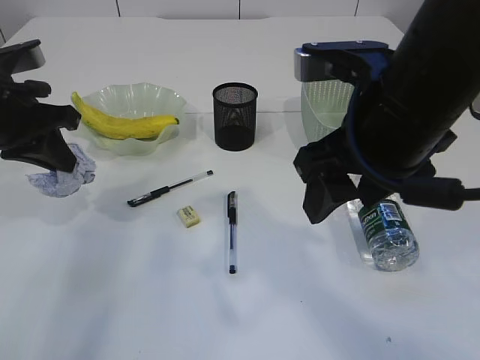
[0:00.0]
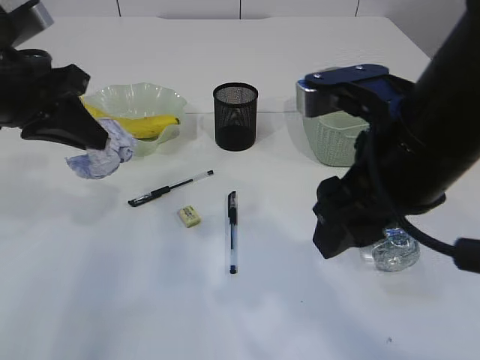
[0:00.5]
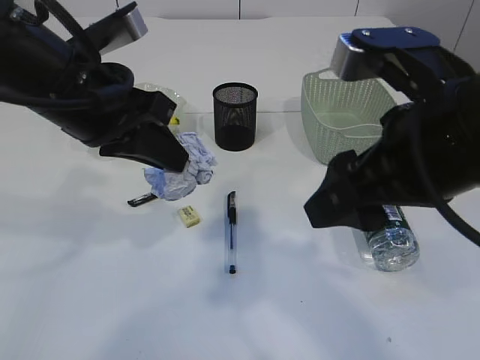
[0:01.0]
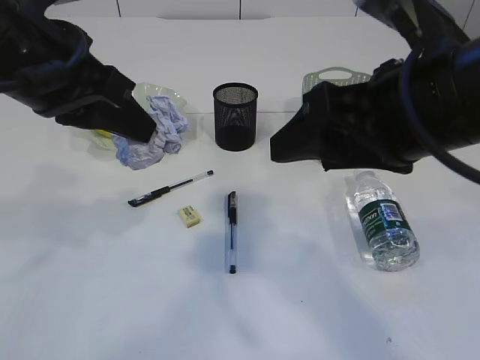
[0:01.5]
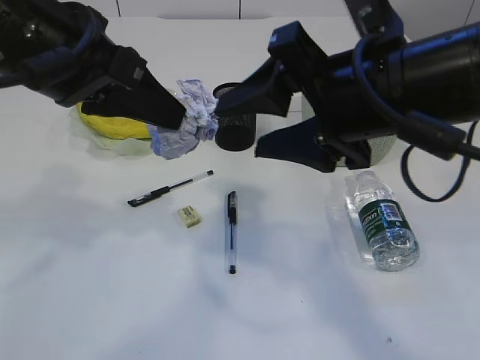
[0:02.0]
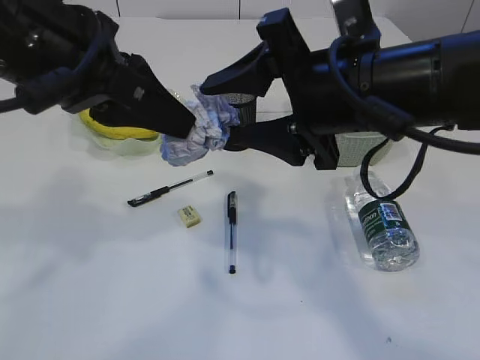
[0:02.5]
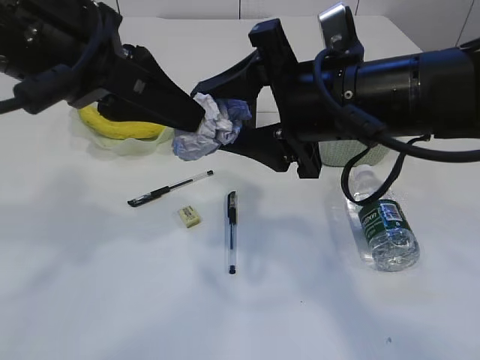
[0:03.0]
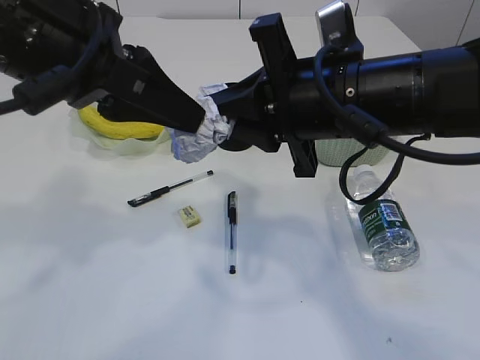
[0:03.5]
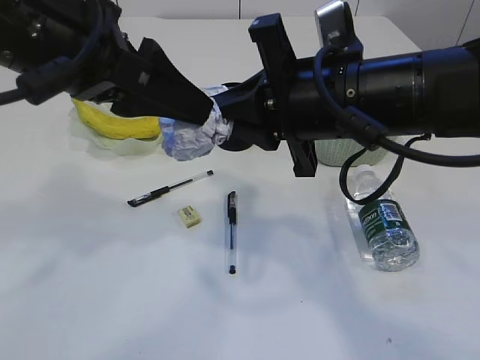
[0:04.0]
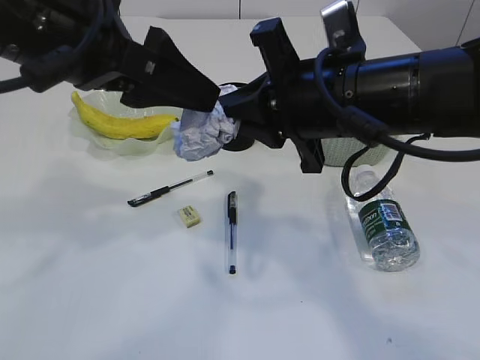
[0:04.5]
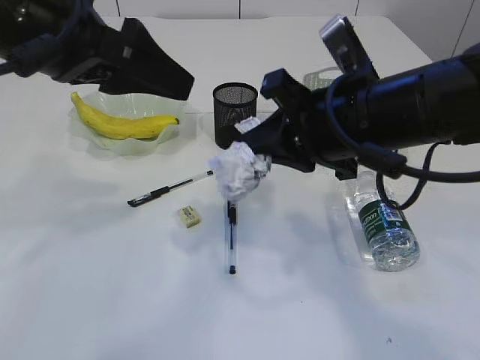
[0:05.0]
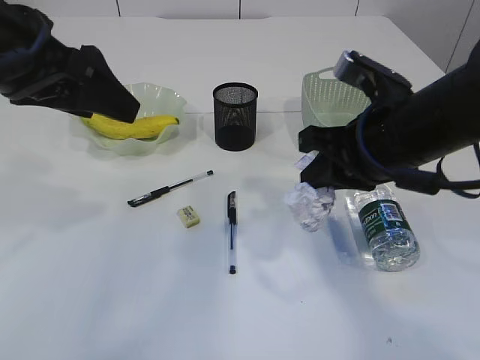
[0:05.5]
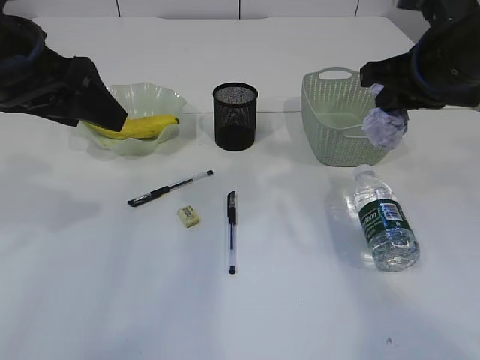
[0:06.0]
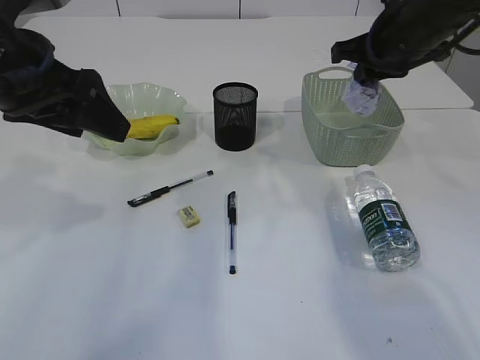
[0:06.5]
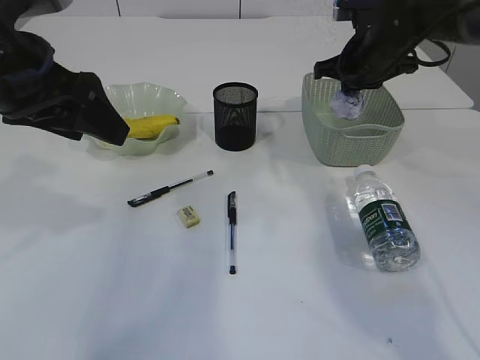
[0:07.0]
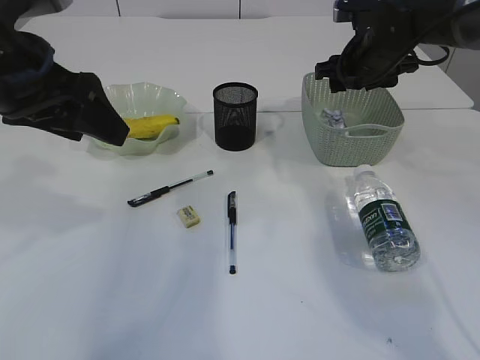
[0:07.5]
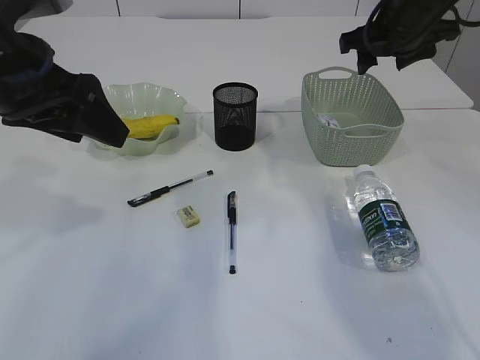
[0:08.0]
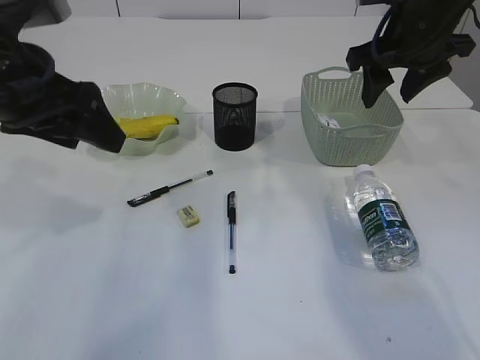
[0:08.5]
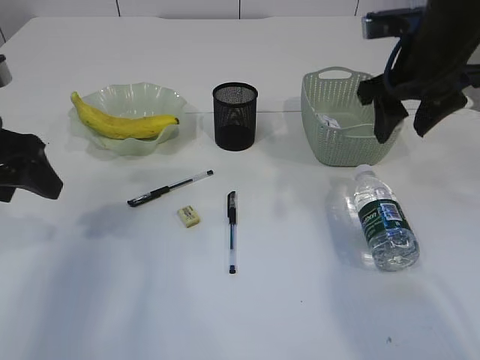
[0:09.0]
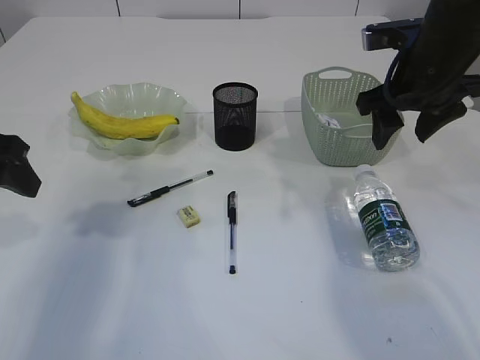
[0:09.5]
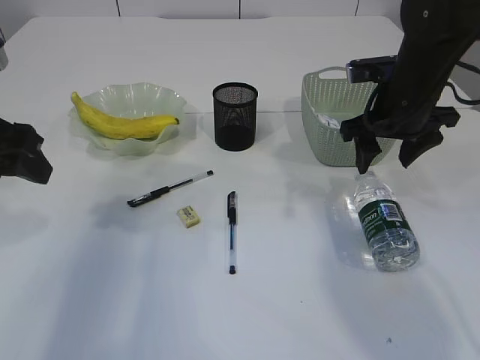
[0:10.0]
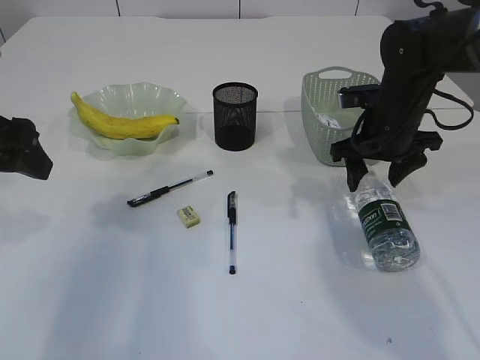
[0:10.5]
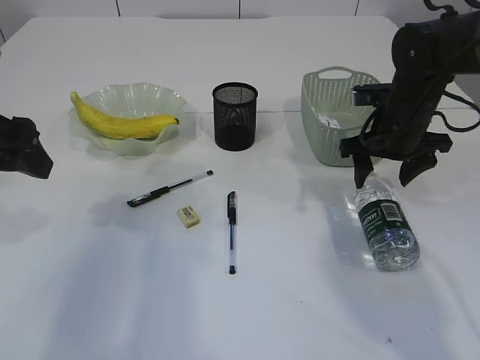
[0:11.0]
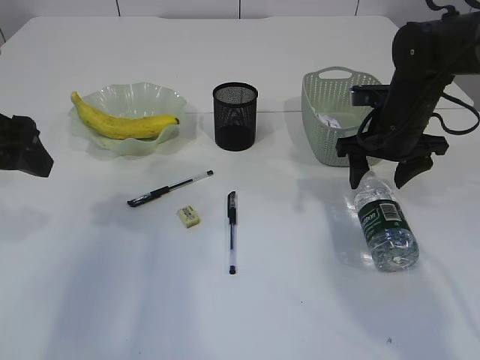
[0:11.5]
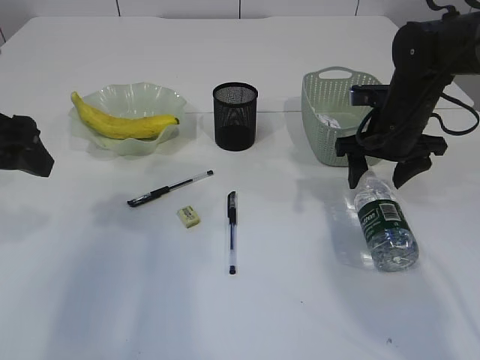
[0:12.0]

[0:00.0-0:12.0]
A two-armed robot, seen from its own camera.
Step, 0:00.0 to 0:04.5: Hand over the waste paper.
Step, 0:05.0 to 0:08.5: Place the eraser into the pen holder.
0:00.0 to 0:02.0: The left gripper shifts about 15 cm to the right, upward and backward.
0:02.0 to 0:04.0: The left gripper opens. The right gripper closes up.
0:04.0 to 0:06.0: The right gripper heads to the right and forward, covering approximately 15 cm; the left gripper is displaced to the left by roughly 5 cm.
0:06.0 to 0:08.0: The right gripper shifts approximately 10 cm forward, and opens up.
0:08.0 to 0:10.0: The right gripper travels downward and backward by about 10 cm, while the left gripper shifts about 5 cm to the left.
0:10.0 to 0:12.0: The right gripper ends up roughly 5 cm from where it was.

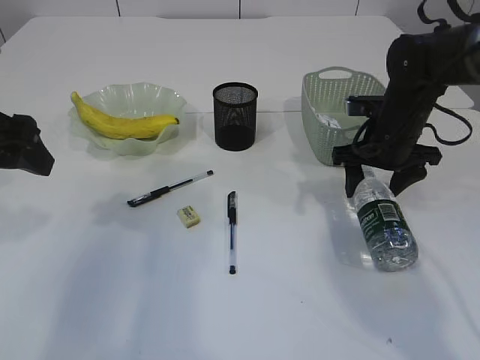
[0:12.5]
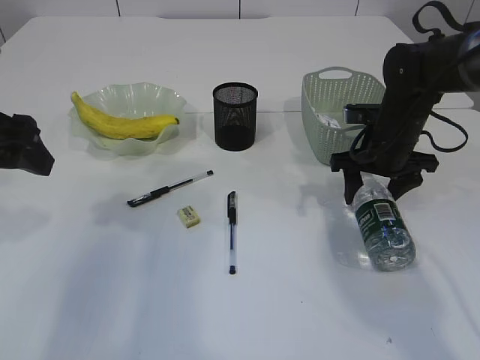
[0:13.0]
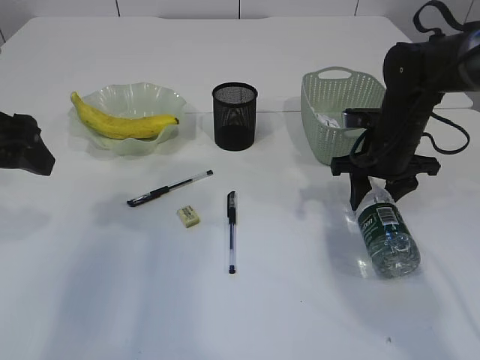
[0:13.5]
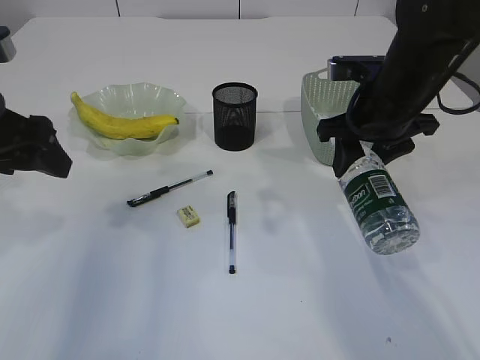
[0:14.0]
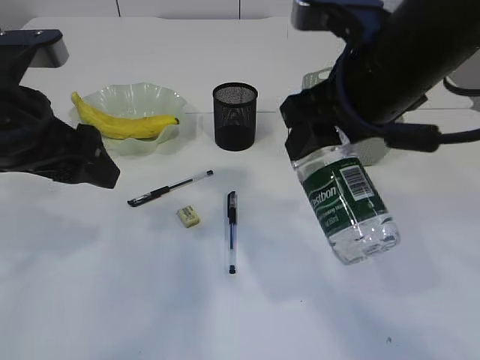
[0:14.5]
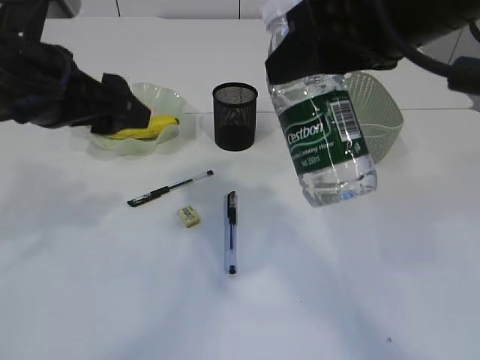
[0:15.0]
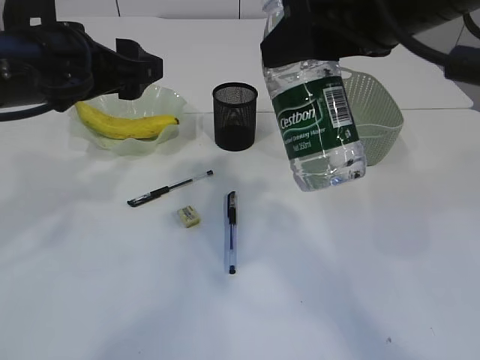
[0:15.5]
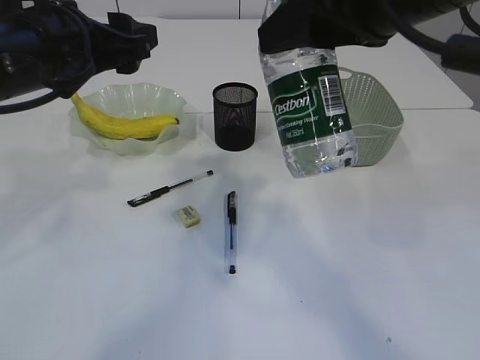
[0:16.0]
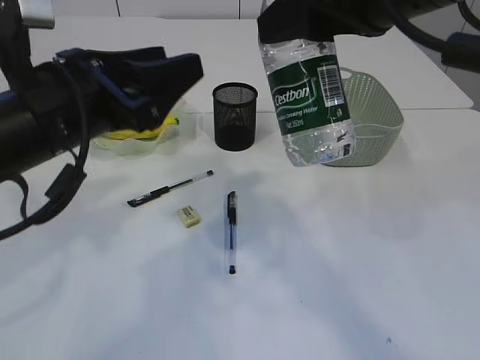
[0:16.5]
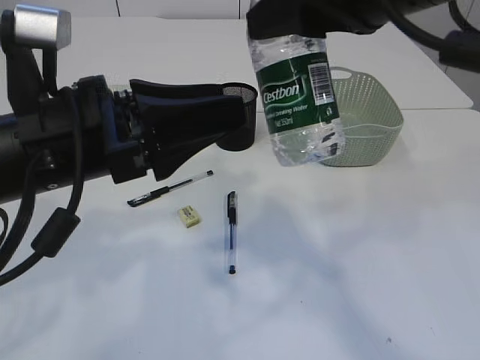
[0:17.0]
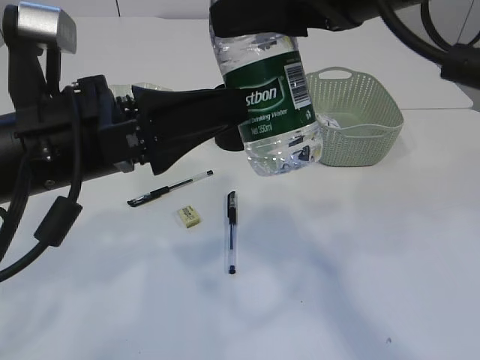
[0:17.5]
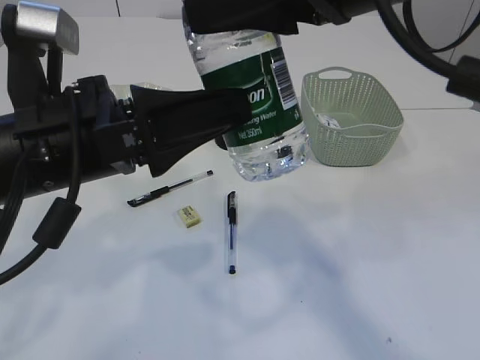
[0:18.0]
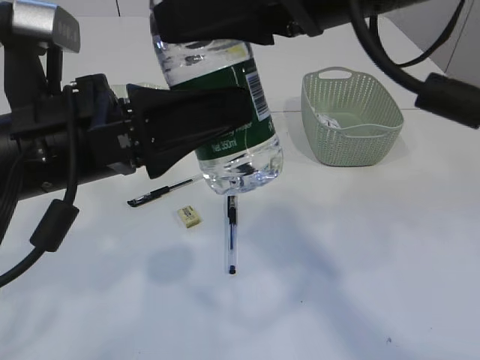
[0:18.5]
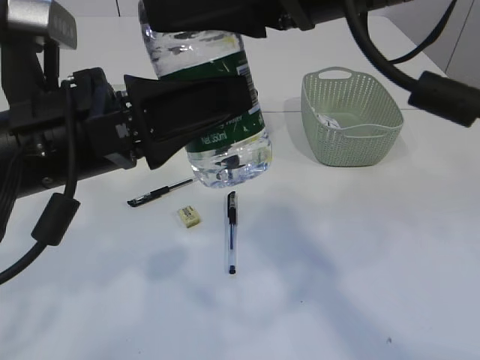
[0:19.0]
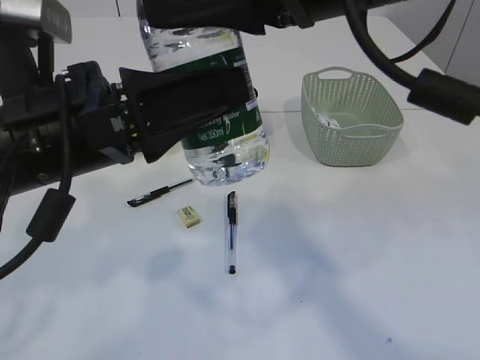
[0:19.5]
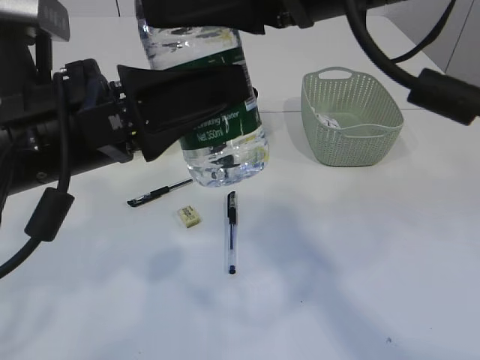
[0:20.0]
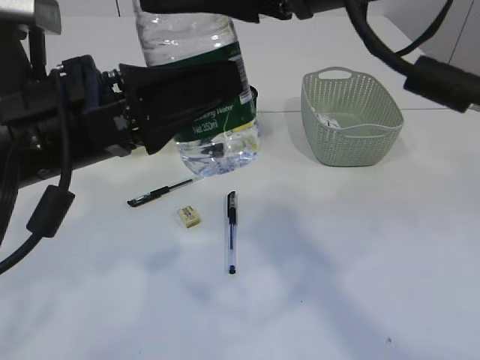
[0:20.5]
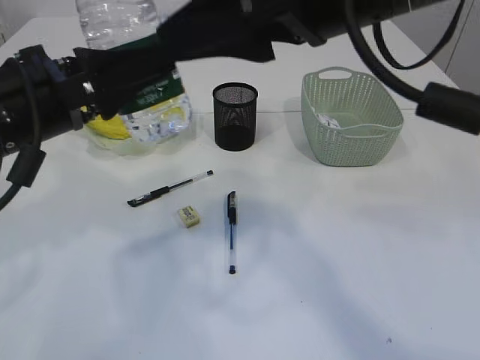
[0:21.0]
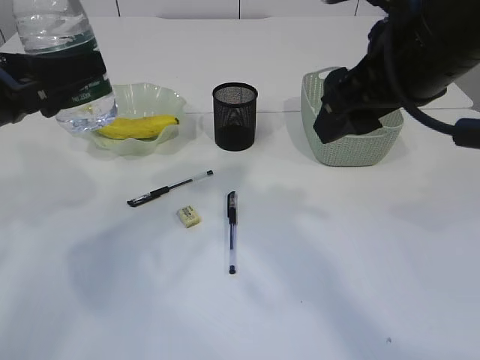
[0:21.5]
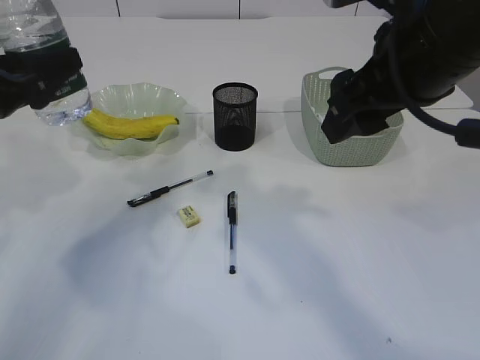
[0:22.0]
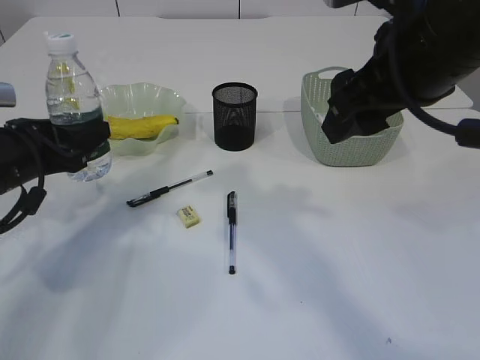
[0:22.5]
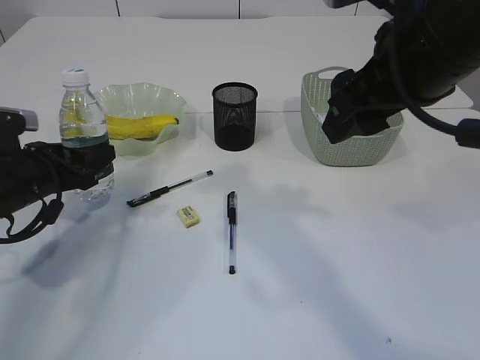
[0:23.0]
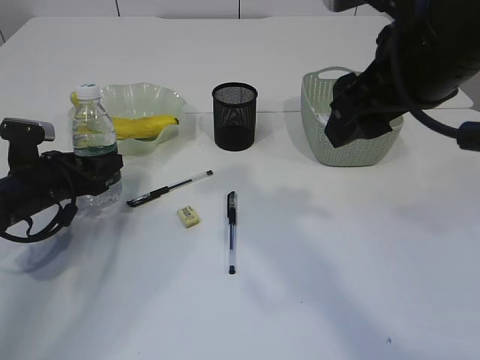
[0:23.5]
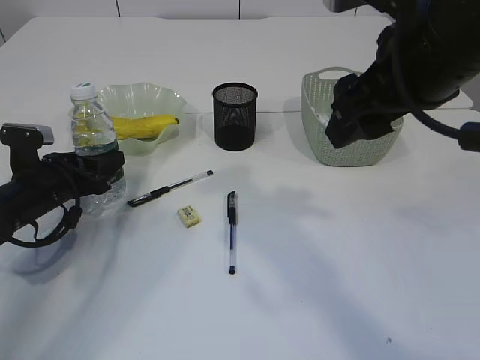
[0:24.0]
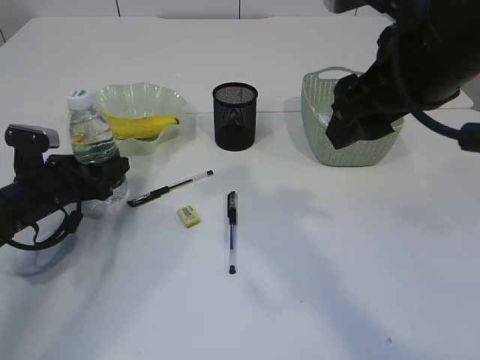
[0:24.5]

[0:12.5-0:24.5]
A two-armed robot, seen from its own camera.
Step, 0:14.5 to 0:21.0: transfer the bottle to the left arm.
0:12.5 to 0:14.5: The left gripper is displaced to the right by roughly 5 cm, while the right gripper goes roughly 20 cm upward, backward and to the left, and closes its fingers.
0:14.5 to 0:16.5: The right gripper shifts some 10 cm upward.
0:18.5 to 0:20.5: There are only small adjustments of the grippers.
0:20.5 to 0:22.5: The left gripper shifts approximately 20 cm to the left, downward and forward. Meanwhile the right gripper goes about 10 cm to the right and downward.
0:22.5 to 0:24.5: The left gripper goes approximately 10 cm downward.

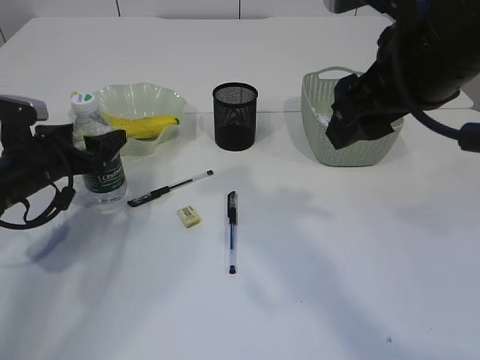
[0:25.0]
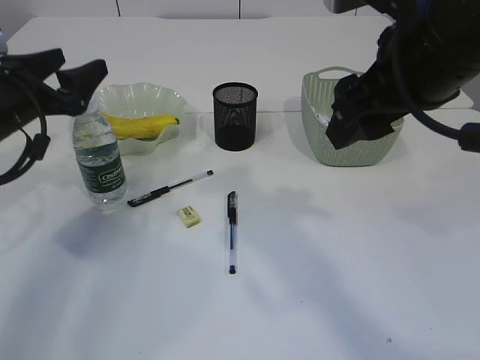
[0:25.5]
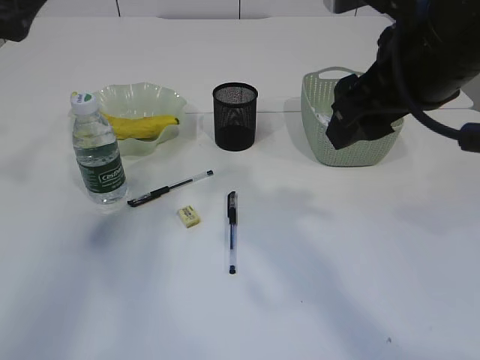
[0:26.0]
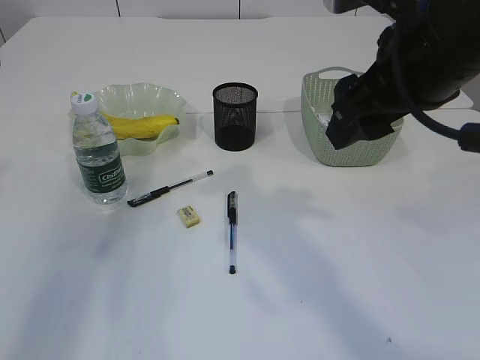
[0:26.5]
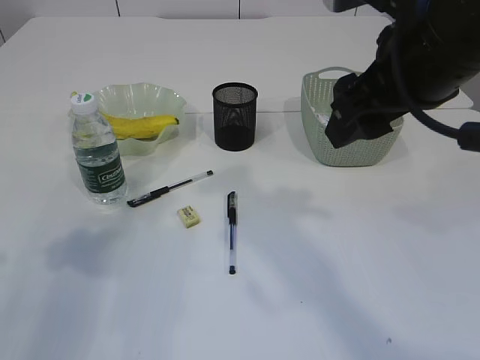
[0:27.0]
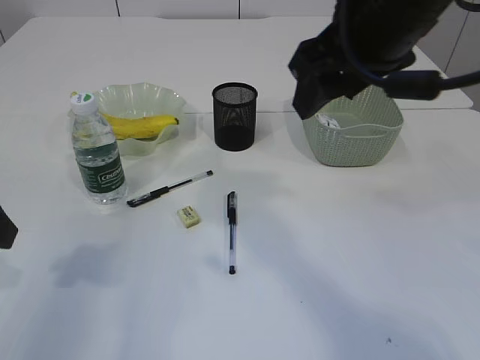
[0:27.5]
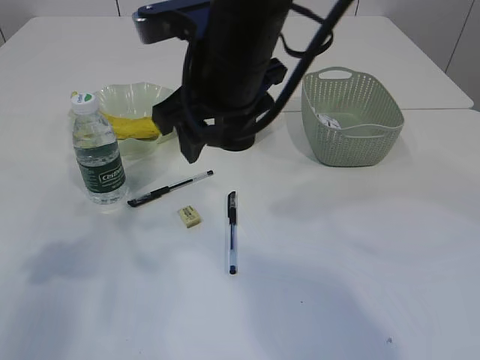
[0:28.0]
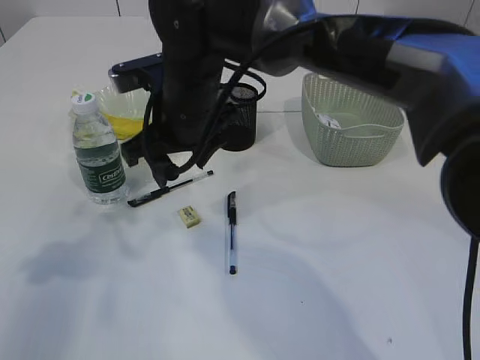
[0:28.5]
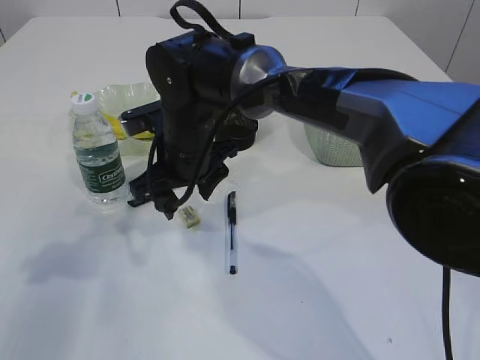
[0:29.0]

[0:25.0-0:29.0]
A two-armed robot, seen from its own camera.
0:25.0 to 0:27.0: The left gripper shifts some 20 cm upward and backward.
0:27.0 to 0:29.0: The right gripper moves to the left, downward and forward, approximately 25 cm.
